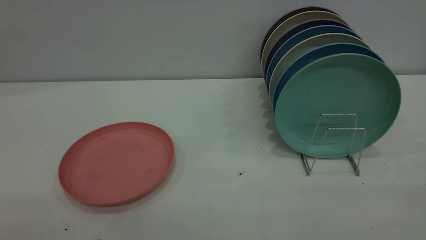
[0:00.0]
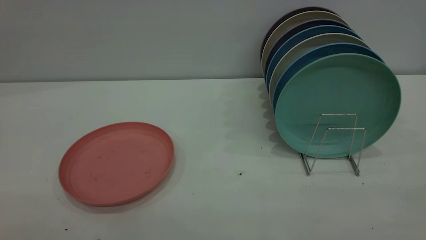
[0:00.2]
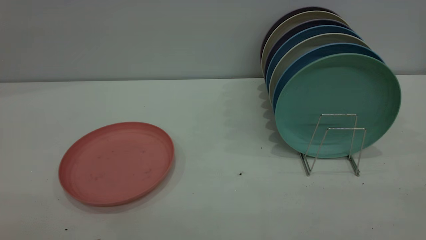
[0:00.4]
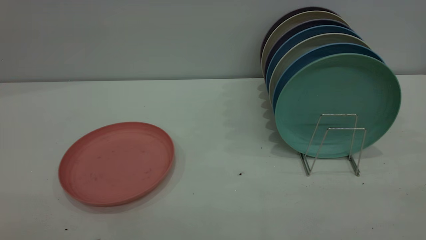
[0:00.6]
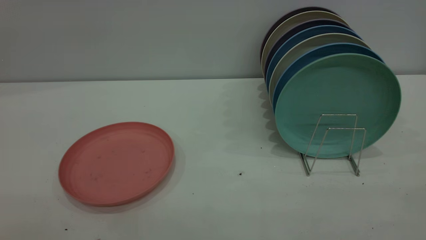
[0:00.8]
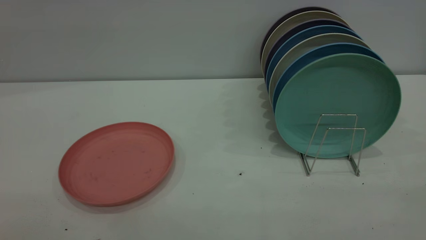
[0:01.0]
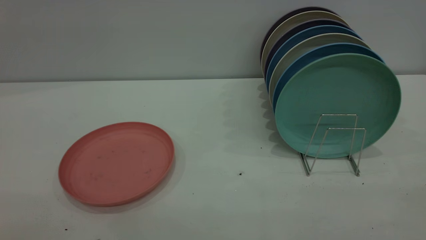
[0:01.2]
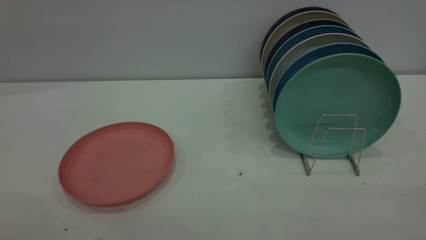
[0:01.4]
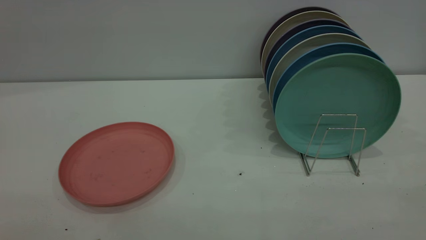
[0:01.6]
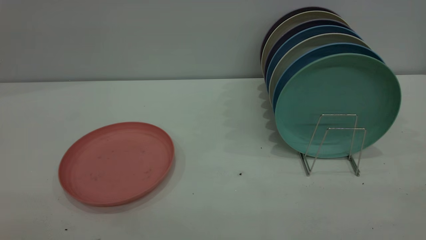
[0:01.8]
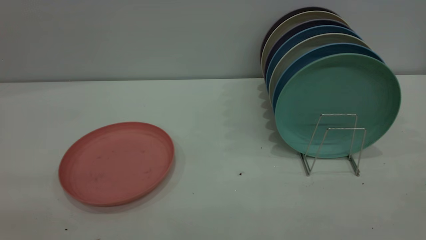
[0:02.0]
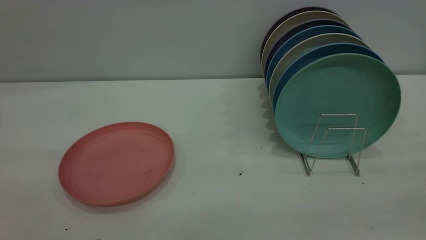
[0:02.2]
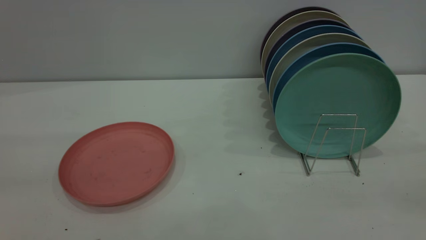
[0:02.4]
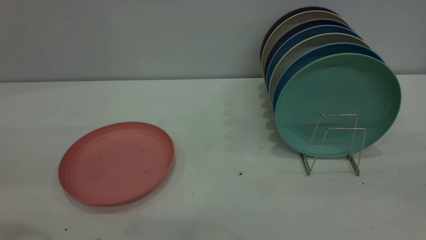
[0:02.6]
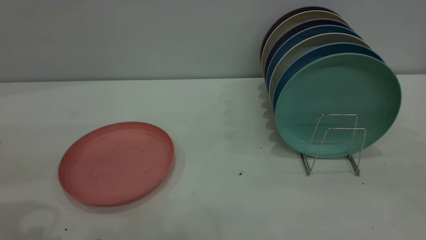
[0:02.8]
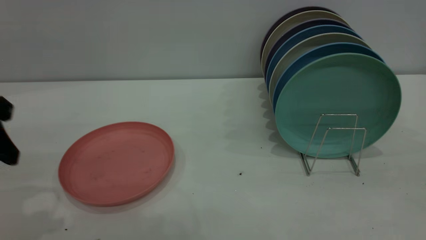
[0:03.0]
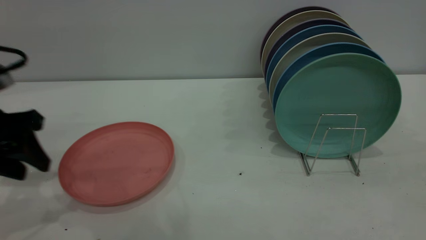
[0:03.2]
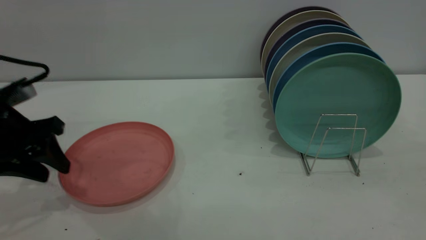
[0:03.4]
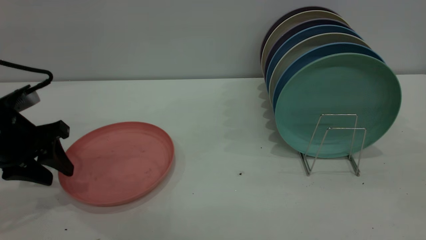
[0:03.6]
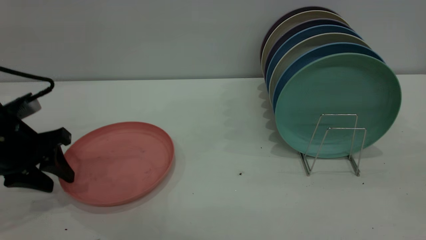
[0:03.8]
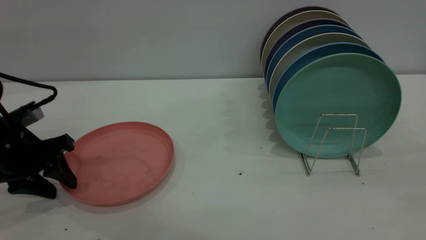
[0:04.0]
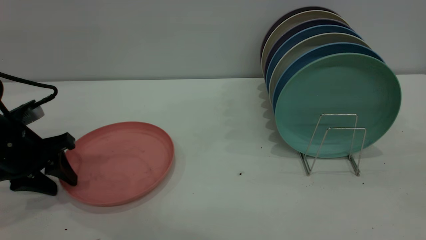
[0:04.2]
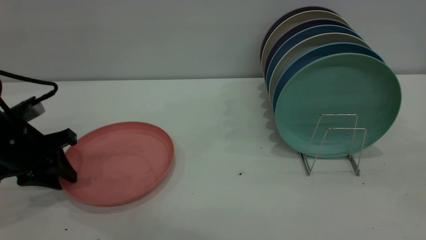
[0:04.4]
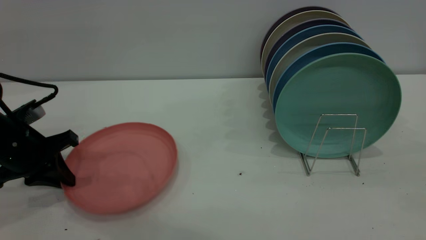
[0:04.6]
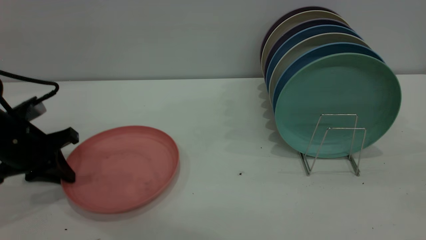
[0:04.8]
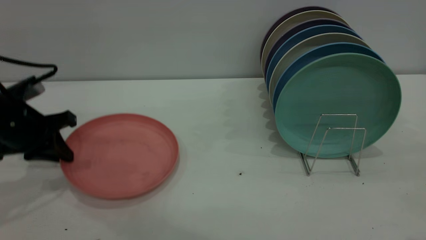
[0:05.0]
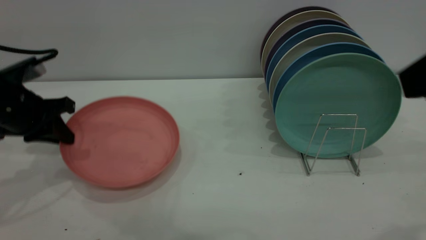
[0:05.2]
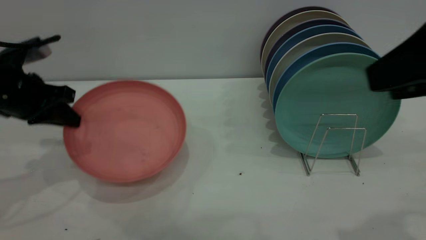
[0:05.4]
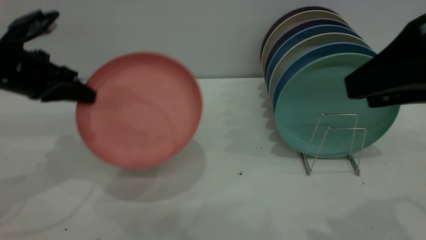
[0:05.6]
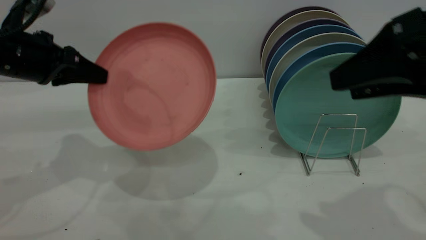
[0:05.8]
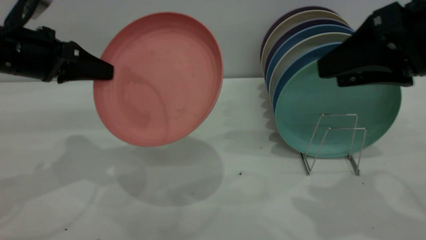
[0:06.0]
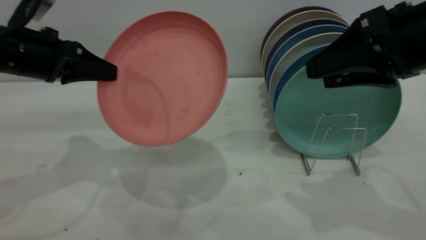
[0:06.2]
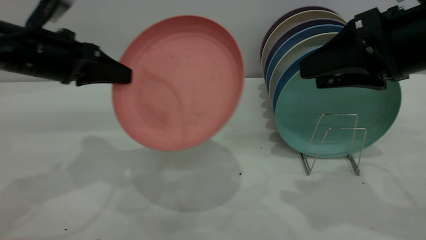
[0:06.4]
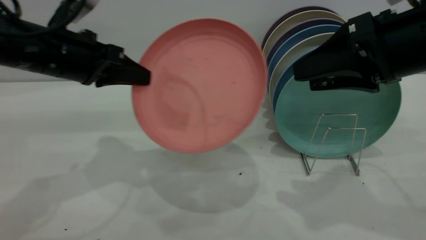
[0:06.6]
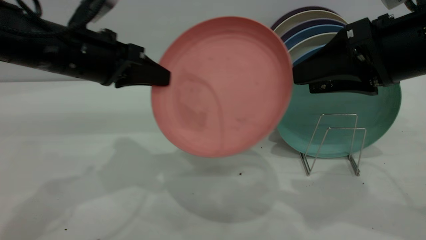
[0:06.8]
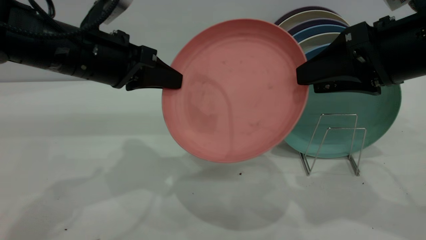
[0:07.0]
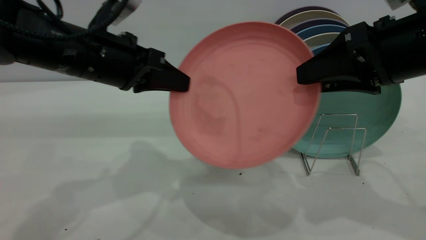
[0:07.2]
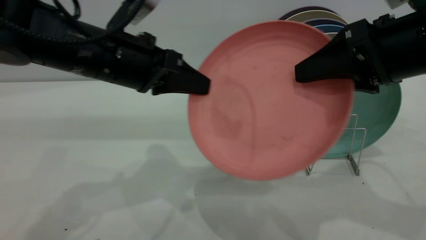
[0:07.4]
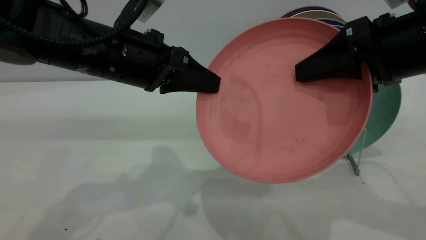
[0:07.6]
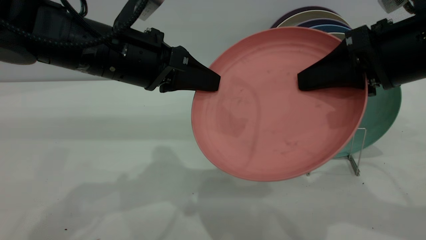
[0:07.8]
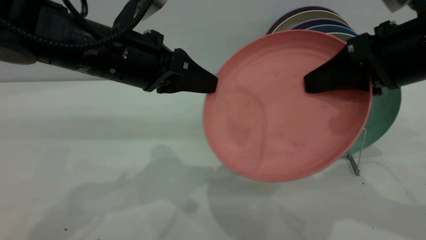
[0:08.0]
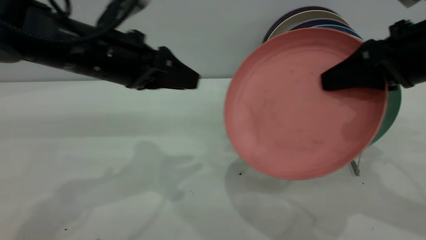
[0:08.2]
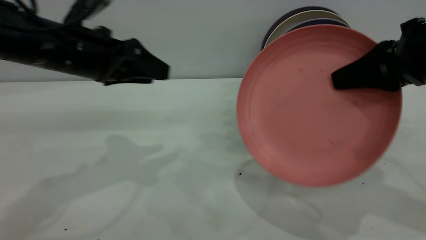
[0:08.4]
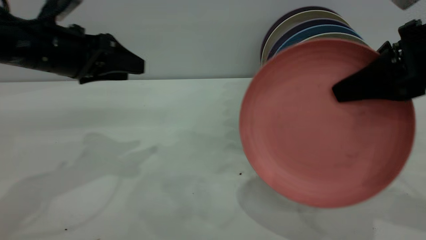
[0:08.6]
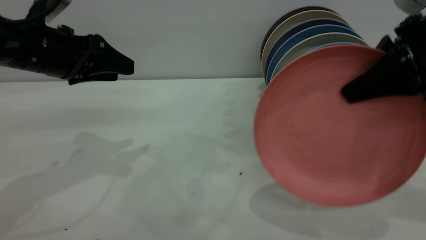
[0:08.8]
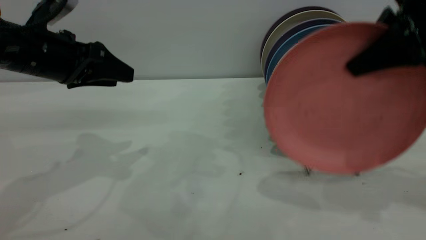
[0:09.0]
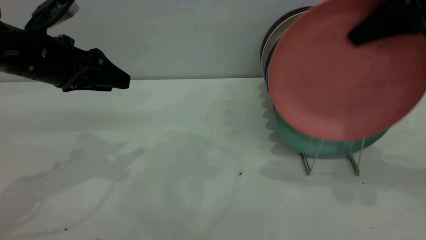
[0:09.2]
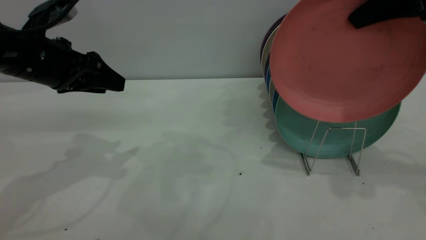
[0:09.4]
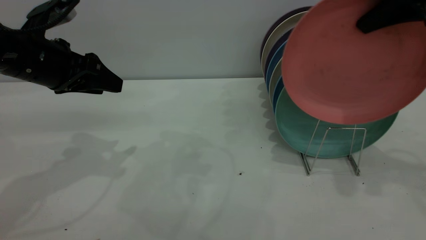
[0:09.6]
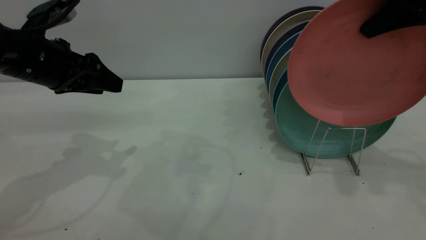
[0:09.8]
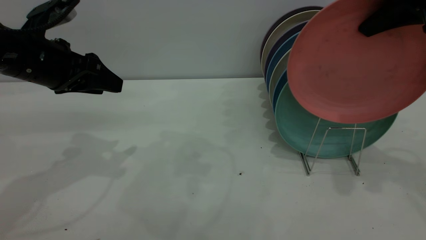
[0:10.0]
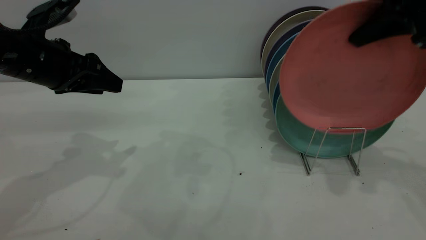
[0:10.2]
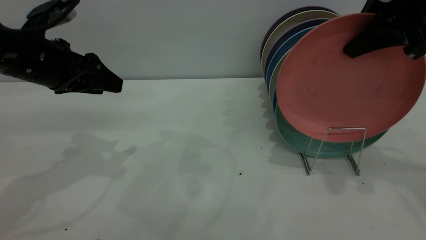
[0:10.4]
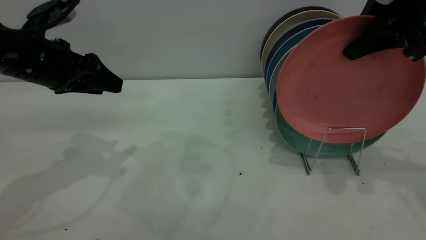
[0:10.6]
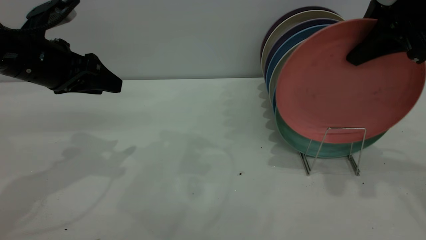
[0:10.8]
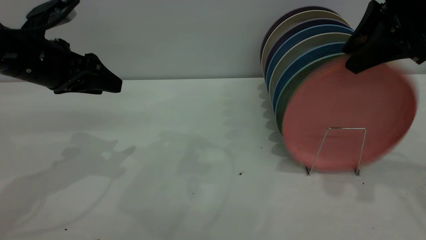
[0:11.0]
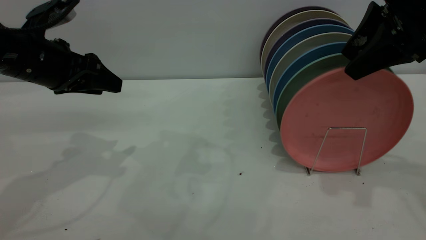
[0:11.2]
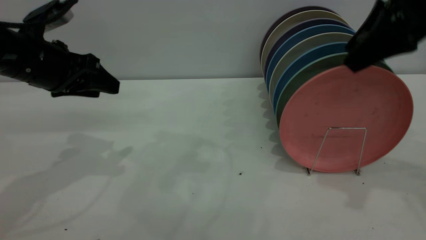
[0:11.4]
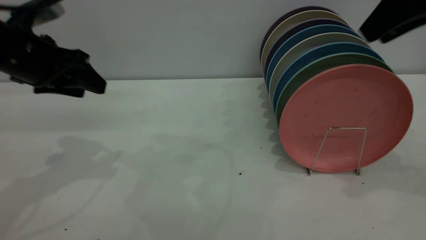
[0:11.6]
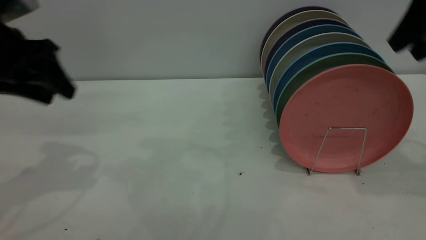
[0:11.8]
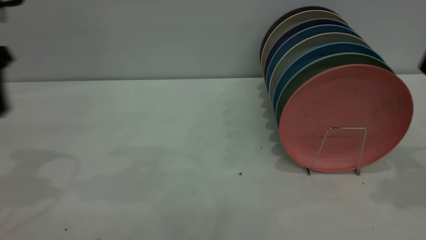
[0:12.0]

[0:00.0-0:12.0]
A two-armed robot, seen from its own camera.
Task of the whole recording: put the plate on the plate rack.
Step, 0.0 to 5.2 s: Pick up the plate with the left gripper.
Step, 5.4 to 7.2 s: Pass the plate from the left gripper to the right gripper.
Step, 7.4 to 11.2 s: Place the plate on the shelf.
0.0 to 1.6 s: The two grippers keep their place.
1.6 to 3.0 s: The left gripper travels forward and downward by roughly 30 cm.
3.0 to 4.4 s: The left gripper goes about 15 cm downward and forward, and closes its fingers.
4.4 to 6.0 s: The left gripper goes about 10 cm upward, and closes; the right gripper is displaced forward and downward by some 15 cm.
6.0 to 7.6 s: The right gripper closes up; the left gripper travels to the right by some 15 cm.
7.6 to 9.0 s: The left gripper shifts some 10 cm to the left, and opens its fingers. Meanwhile the right gripper moves roughly 10 cm, and closes its fingers.
9.0 to 10.4 s: The grippers stay close to where they were, moving slightly.
10.4 to 12.0 s: The right gripper goes roughly 5 cm to the right and backward, and opens up. The left gripper moves upward and to the left, some 10 cm.

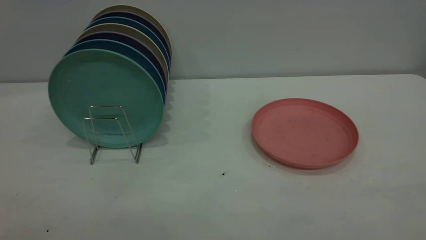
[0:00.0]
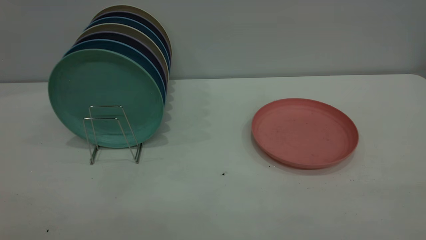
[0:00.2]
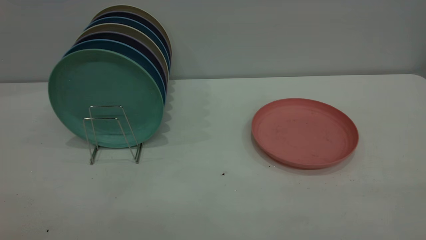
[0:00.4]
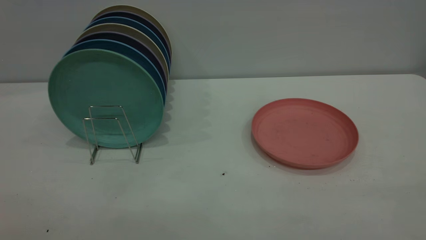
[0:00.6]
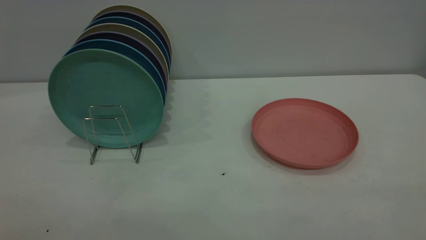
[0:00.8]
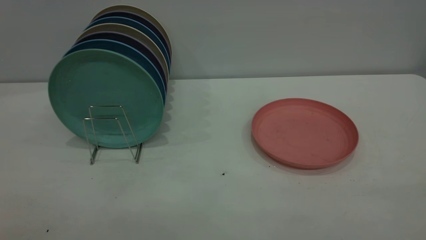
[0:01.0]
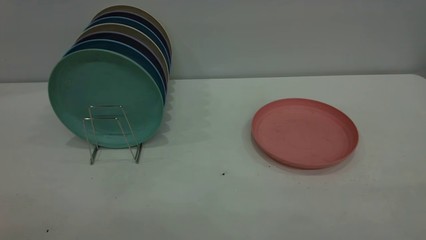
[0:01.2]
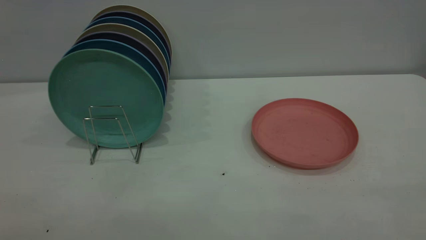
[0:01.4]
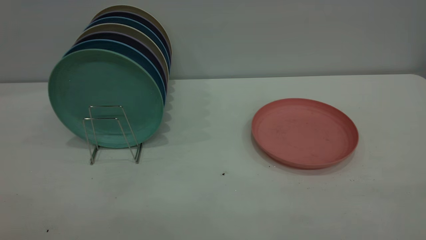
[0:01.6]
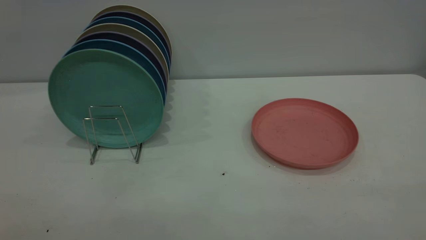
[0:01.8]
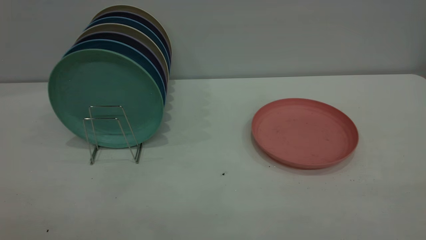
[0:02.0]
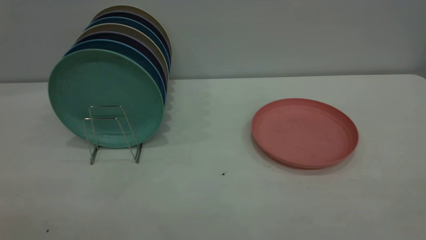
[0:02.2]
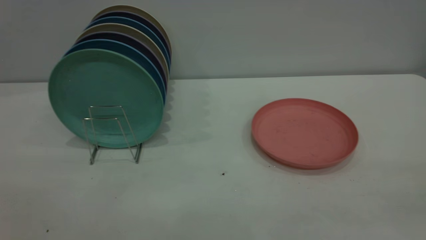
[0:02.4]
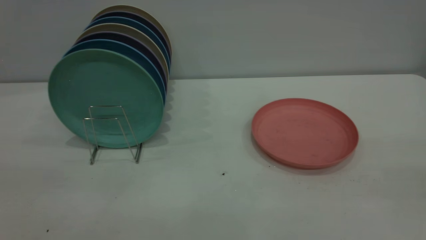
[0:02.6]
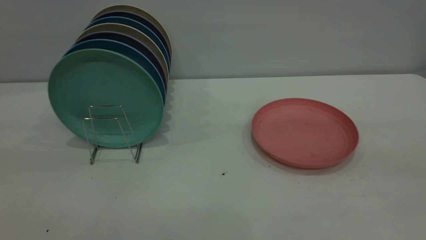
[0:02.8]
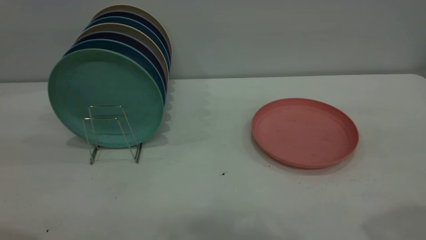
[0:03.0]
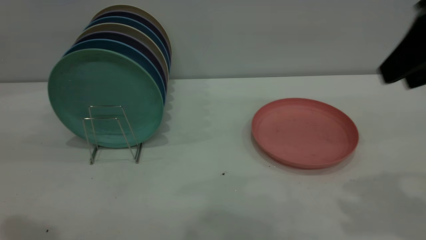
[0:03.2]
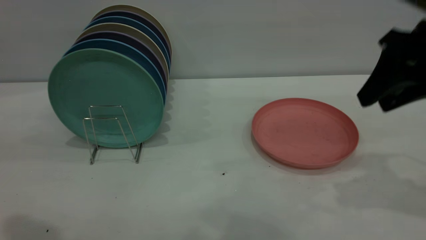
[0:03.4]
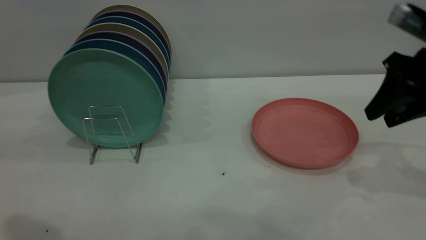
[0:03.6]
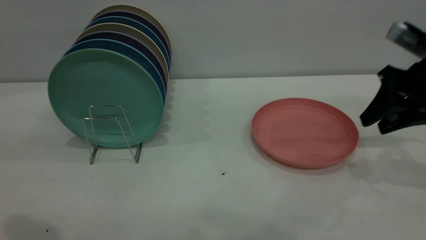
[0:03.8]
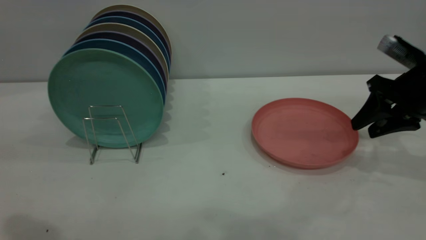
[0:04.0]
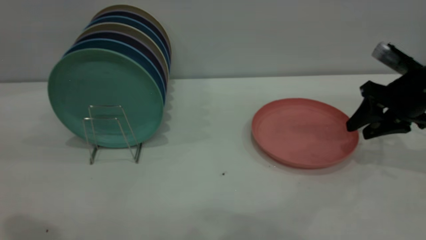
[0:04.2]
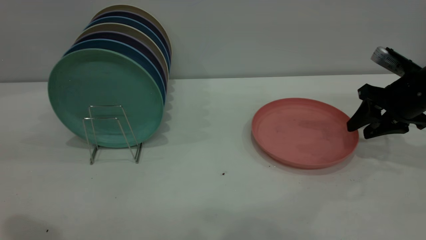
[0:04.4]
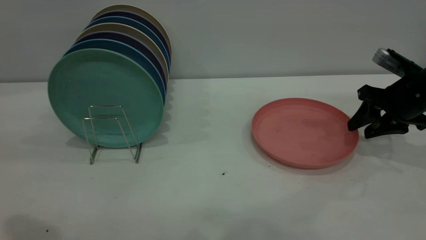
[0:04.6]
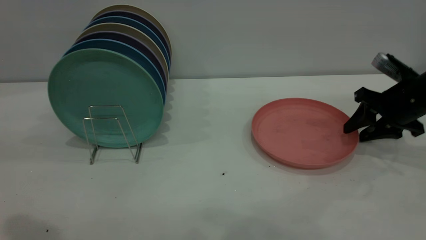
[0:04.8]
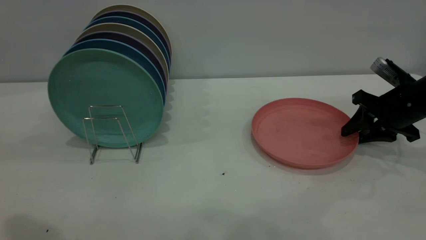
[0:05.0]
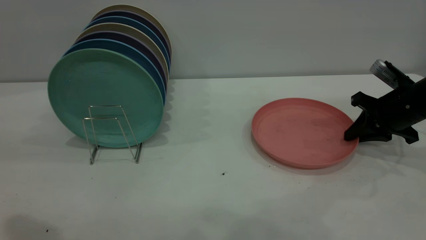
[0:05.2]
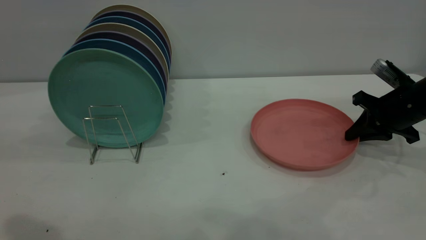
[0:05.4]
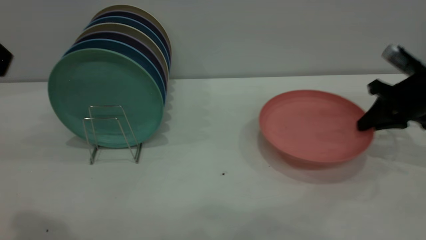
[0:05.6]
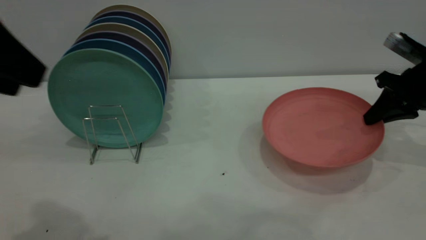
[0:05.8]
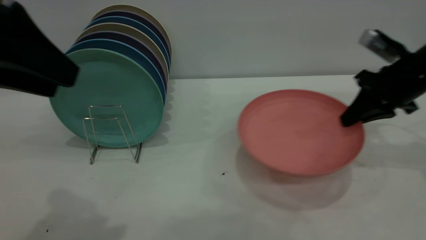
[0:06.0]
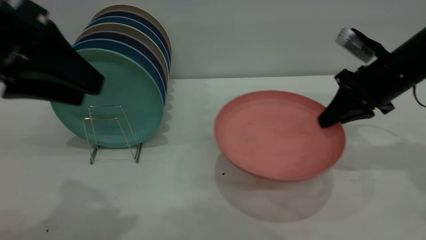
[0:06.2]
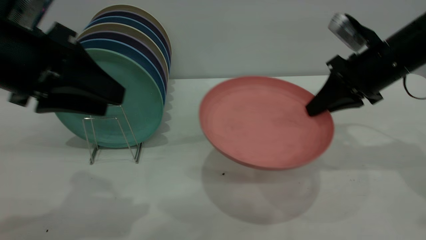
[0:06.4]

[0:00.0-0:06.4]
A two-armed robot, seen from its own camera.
Task of the whole recording: the right gripper grasp the pink plate, the right gripper pass the pink plate to the left gripper, and the left gripper place the pink plate on the plate rack.
Step, 0.0 to 5.6 s: Pick up the plate with the right gripper.
0.0 to 1.6 s: Both grippers stay about where they are.
1.6 to 3.2 s: The right gripper is displaced forward by roughly 30 cm.
3.2 to 4.8 s: The right gripper moves downward and forward, approximately 25 cm.
4.8 to 6.4 s: The right gripper shifts about 10 cm to the left and upward, and closes its fingers. The left gripper goes approximately 15 cm downward and forward.
